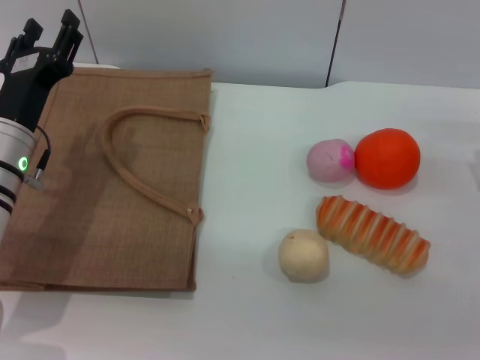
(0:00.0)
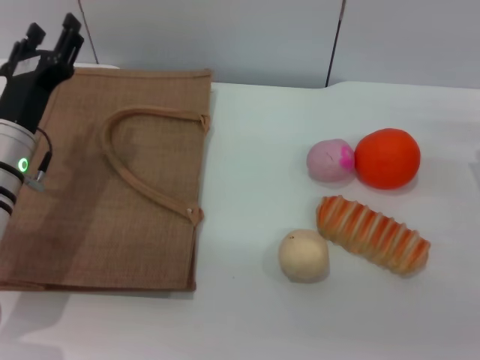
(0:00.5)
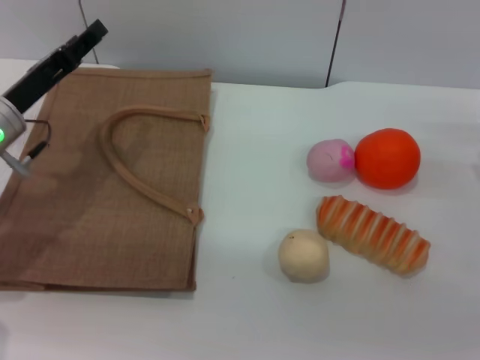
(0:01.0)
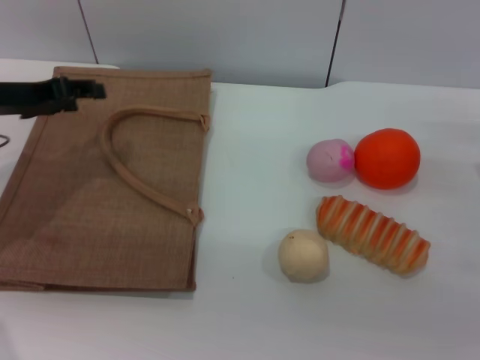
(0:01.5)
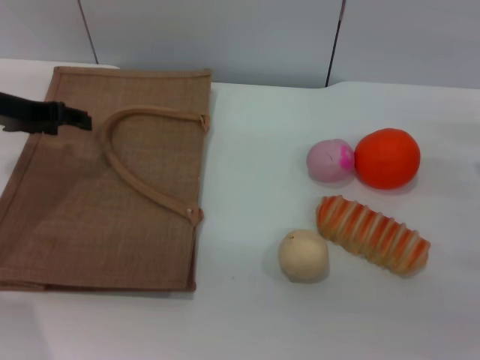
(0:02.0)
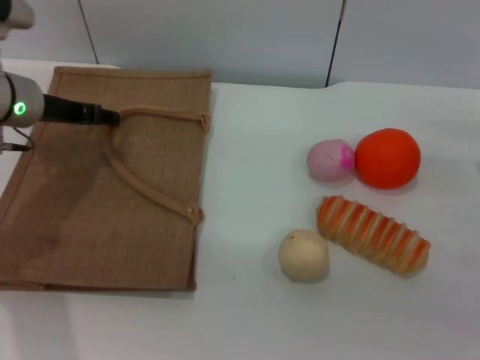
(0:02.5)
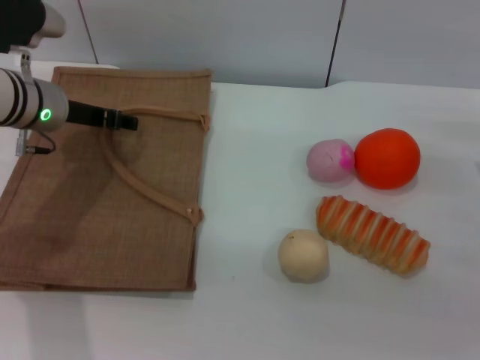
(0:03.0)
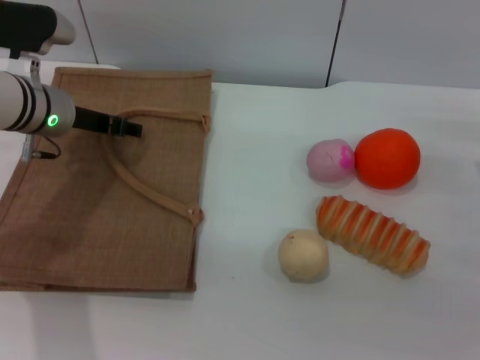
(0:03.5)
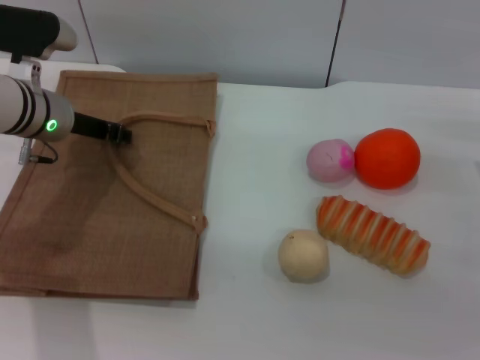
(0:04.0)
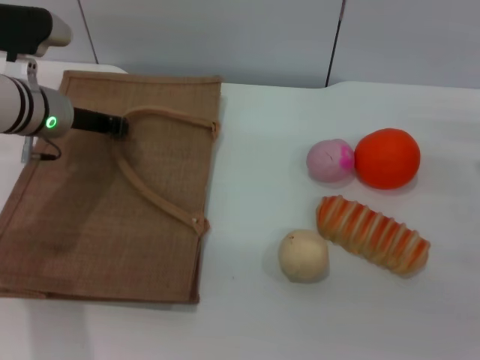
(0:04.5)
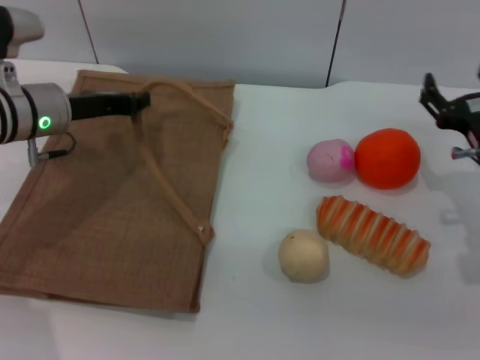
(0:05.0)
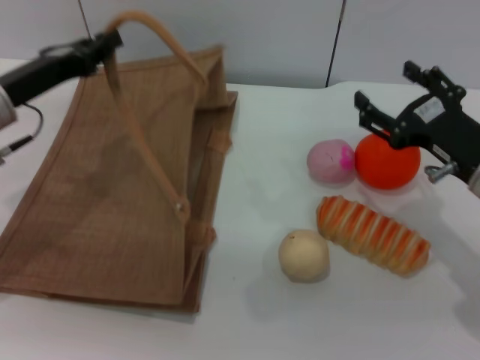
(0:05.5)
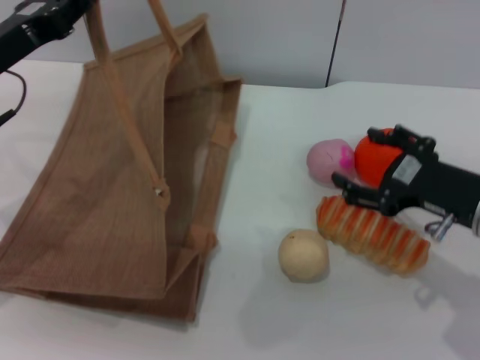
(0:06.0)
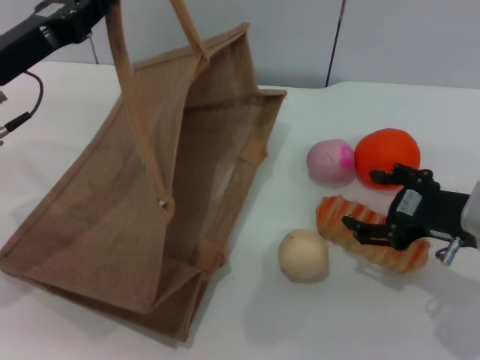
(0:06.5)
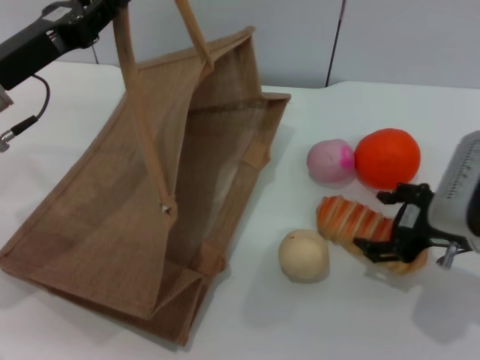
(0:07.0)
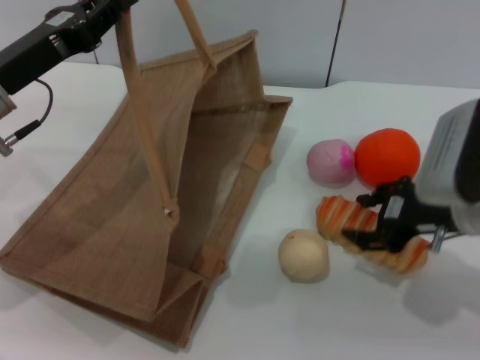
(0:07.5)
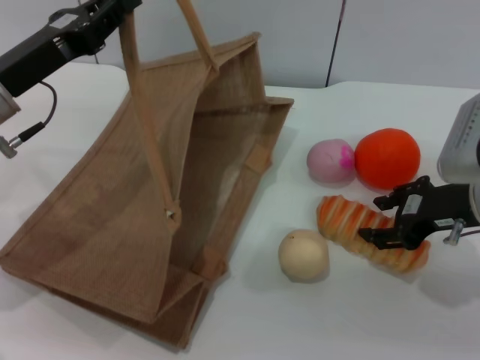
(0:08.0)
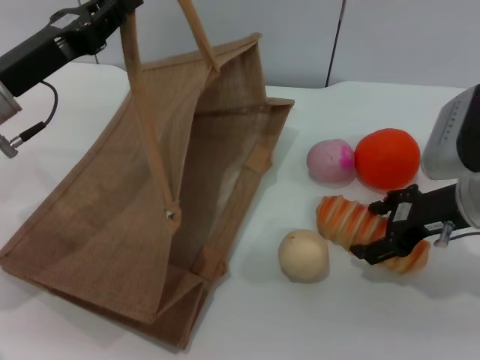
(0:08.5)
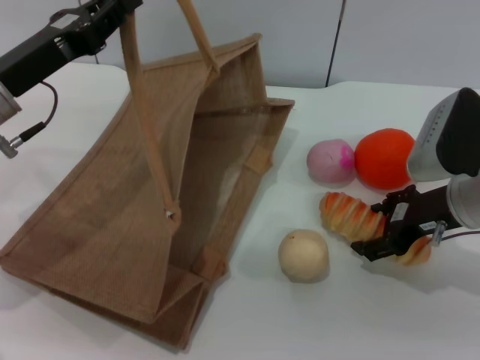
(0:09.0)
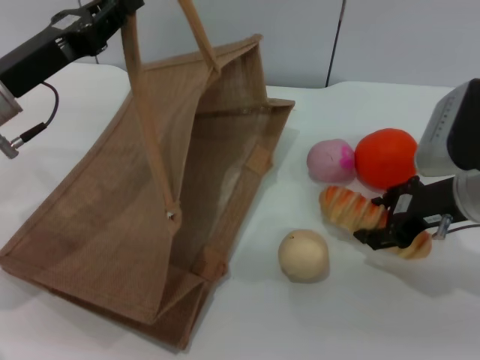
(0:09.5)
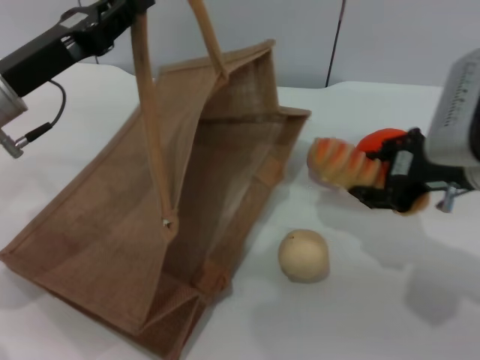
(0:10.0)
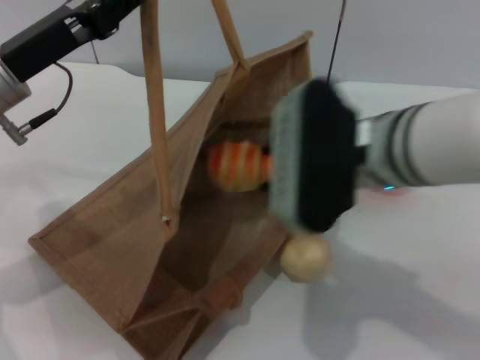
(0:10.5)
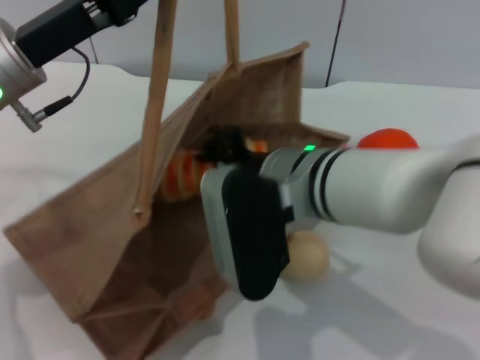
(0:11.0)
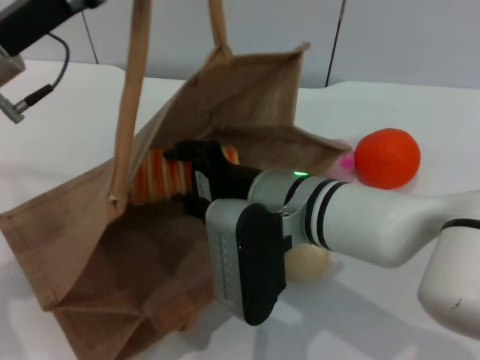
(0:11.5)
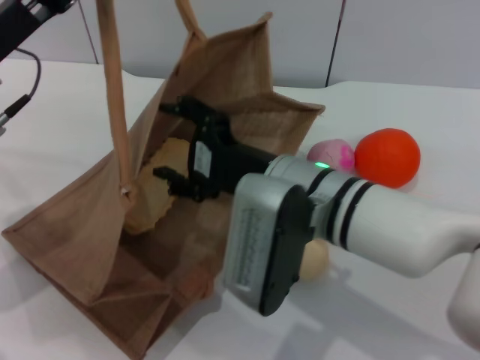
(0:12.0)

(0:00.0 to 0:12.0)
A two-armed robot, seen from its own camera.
Task of the whole recording: pick up the bread and egg yolk pastry from the table and place it in the brown handbag.
Step, 0:00.0 - 0:04.5: Lift the woven bag with the left gripper to open it.
Step, 0:05.0 - 0:09.5: Pick up the bread with the right gripper.
0:00.0 - 0:02.0: The left gripper heads upward, to the left and forward, covering roughly 10 cm.
0:02.0 - 0:04.0: The left gripper moves to the right, approximately 5 cm.
0:04.0 - 0:06.0: The right gripper is displaced to the left by about 5 cm. The left gripper moves backward, some 10 cm, and closes up.
0:06.0 - 0:08.0: The right gripper closes up.
0:08.0 - 0:10.0: The right gripper travels upward by about 5 cm, and opens and closes again.
0:10.0 - 0:12.0: The right gripper goes about 15 cm to the left, and opens.

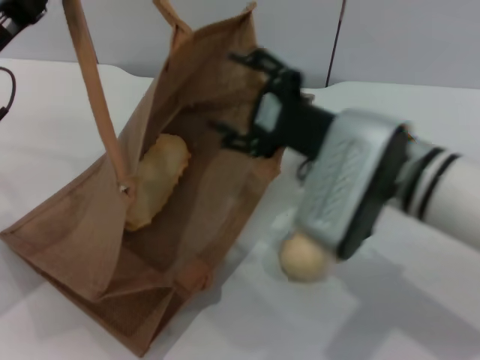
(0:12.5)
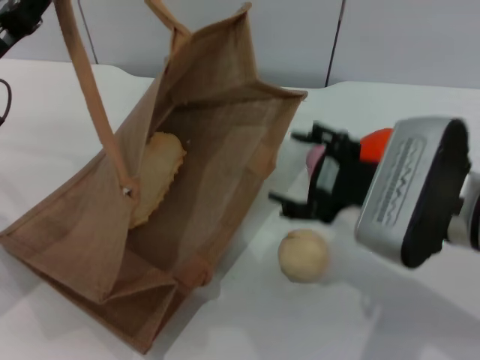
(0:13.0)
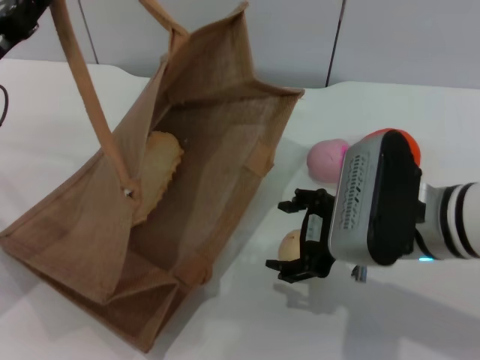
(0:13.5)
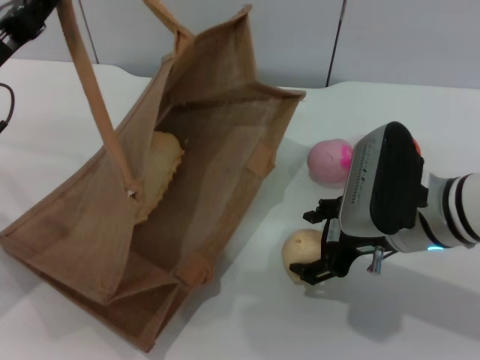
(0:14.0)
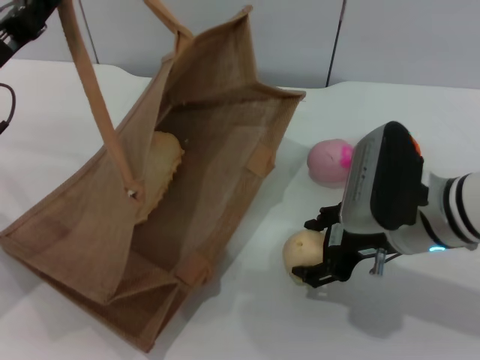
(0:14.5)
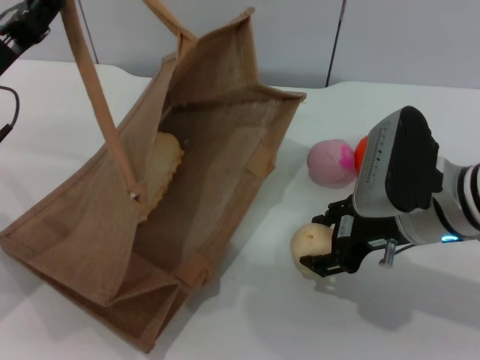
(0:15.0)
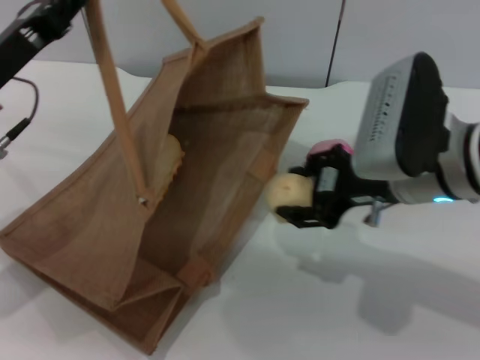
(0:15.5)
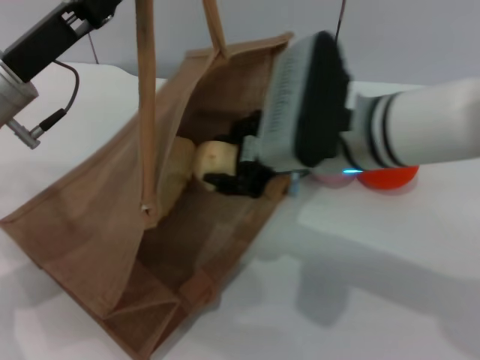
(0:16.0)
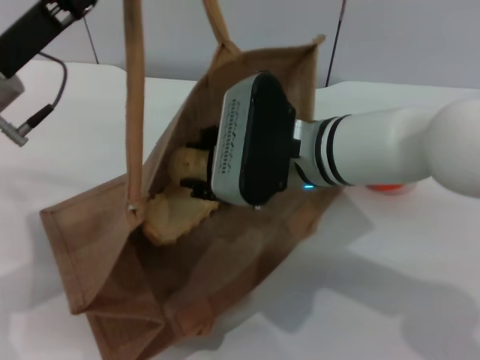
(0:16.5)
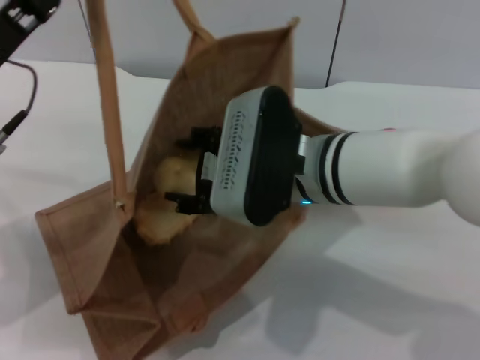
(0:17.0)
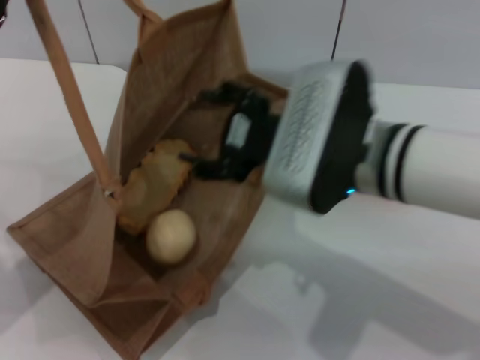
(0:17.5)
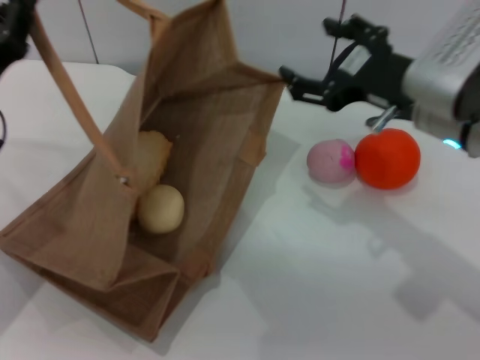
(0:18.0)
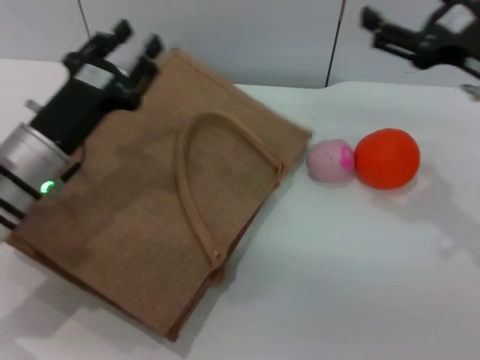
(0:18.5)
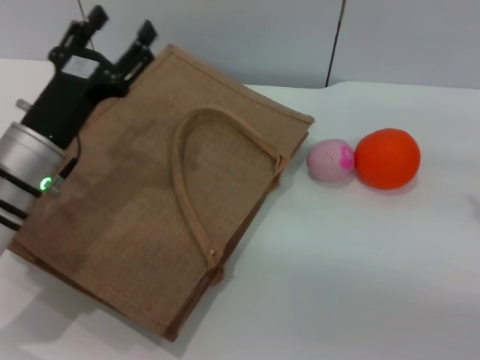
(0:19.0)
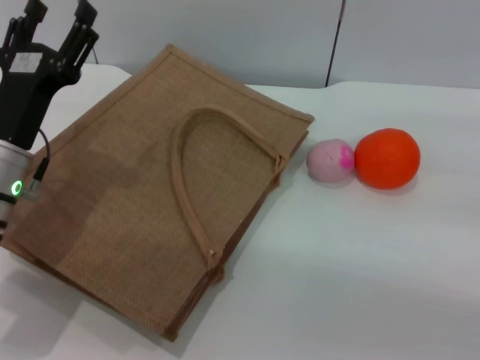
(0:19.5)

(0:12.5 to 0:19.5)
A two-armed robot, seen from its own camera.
Task of the whole recording: pick up the bread and egg yolk pastry from the table and place it in the brown handbag.
Step, 0:13.0 - 0:15.5: Pick up the egg yolk pastry with the right gripper.
Step, 0:16.0 - 0:17.5: Place the egg yolk pastry into the woven bag with the right gripper.
Step, 0:18.0 - 0:19.0: Lower the woven bag with the left gripper to close it.
0:12.5 - 0:14.5: The right gripper changes place by some 5 cm.
0:14.5 - 0:16.0: The left gripper travels to the right by about 5 cm. The right gripper heads to the left and upward, covering roughly 10 cm, and closes.
0:16.0 - 0:17.5: The left gripper ends up approximately 5 cm from where it was. The right gripper opens.
0:17.5 - 0:19.5: The left gripper heads downward and to the right, covering approximately 10 cm, and opens. The right gripper goes approximately 25 cm to the right.

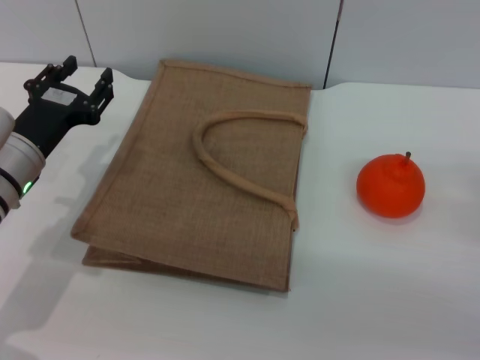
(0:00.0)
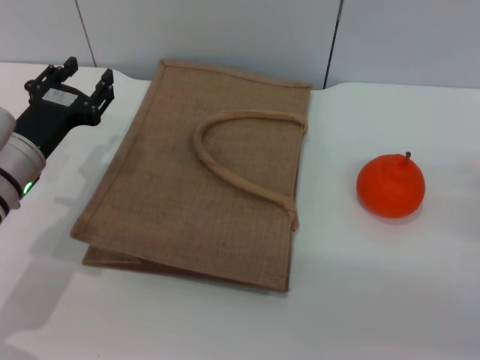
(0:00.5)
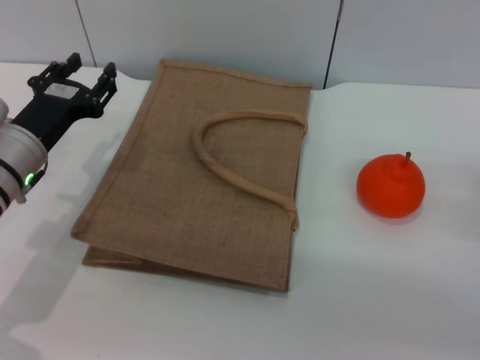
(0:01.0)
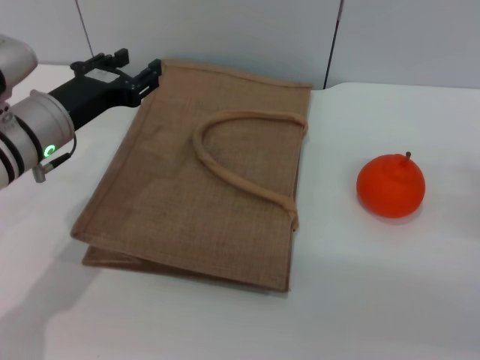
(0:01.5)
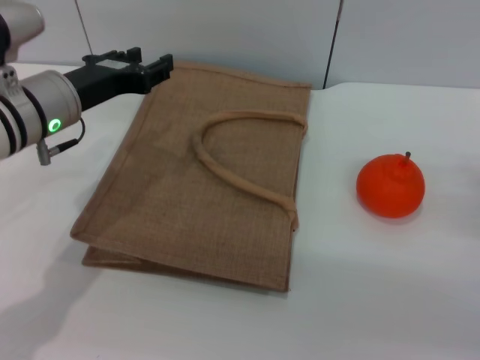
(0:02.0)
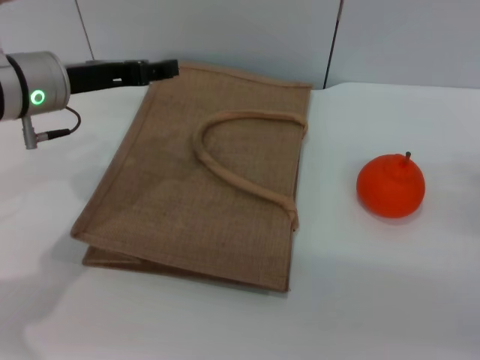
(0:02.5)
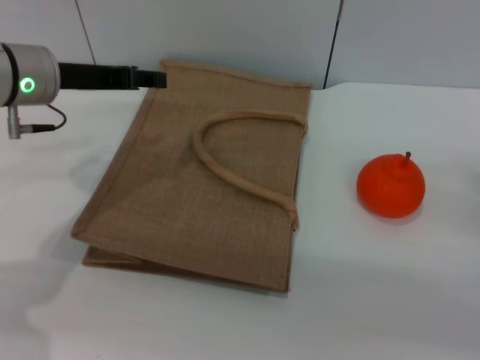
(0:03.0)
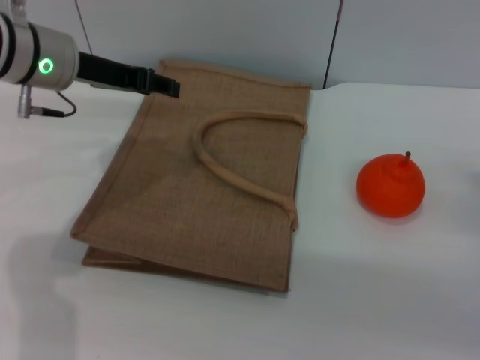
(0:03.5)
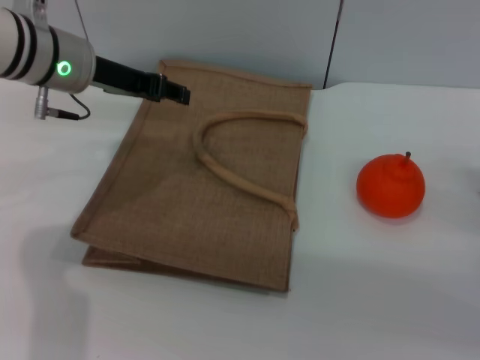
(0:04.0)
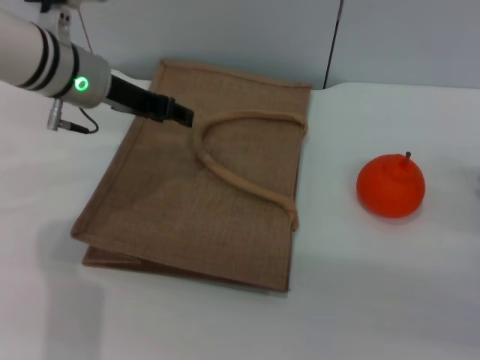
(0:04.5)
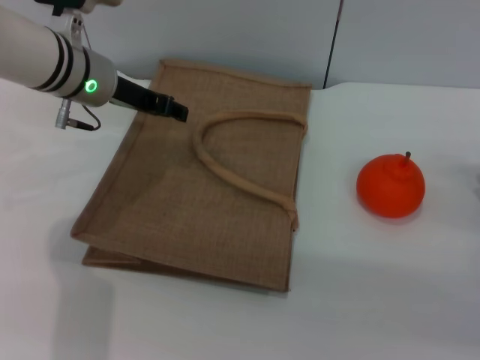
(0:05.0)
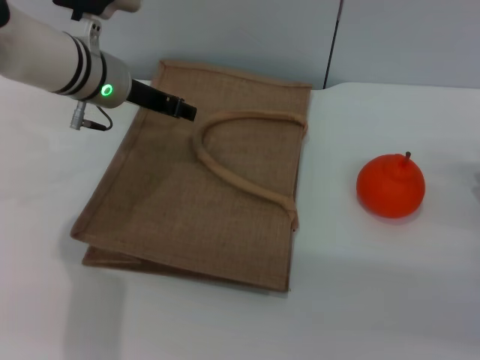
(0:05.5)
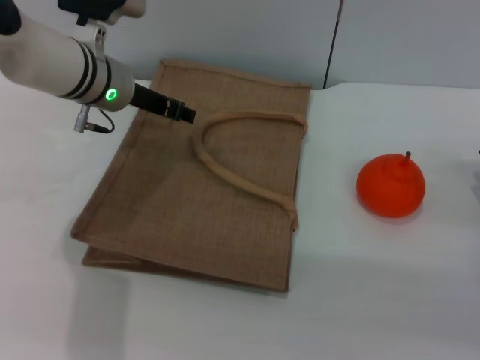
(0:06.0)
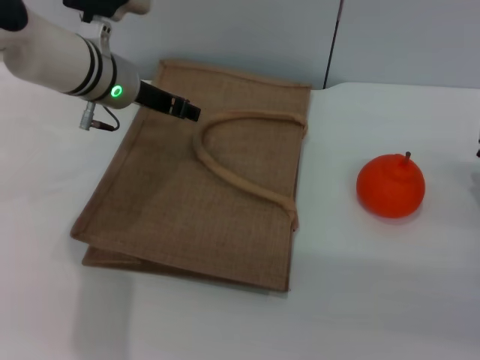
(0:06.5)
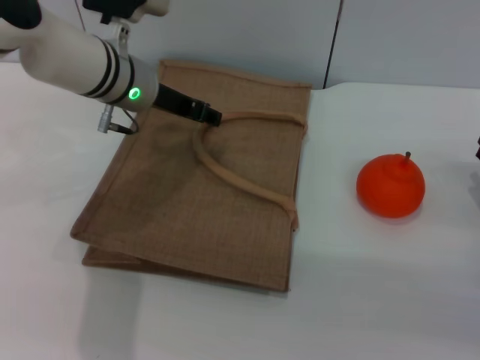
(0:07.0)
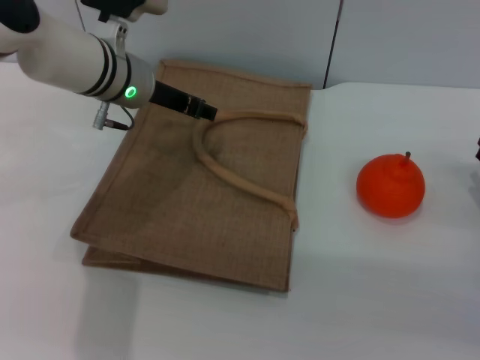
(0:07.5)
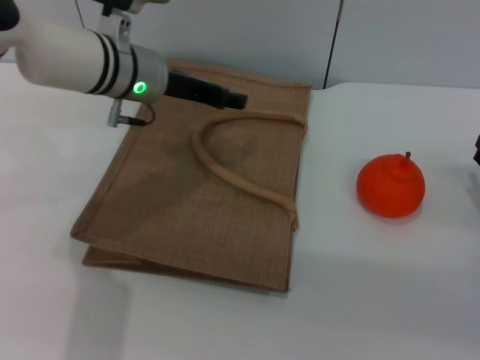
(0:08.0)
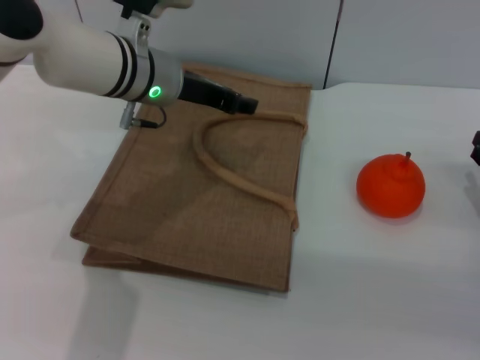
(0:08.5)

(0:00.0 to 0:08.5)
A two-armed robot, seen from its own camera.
Task of the whole recording: pick up the orange from the table and place it in the brown handbag.
0:00.0 - 0:02.0: The left gripper heads upward, covering some 5 cm.
0:02.0 - 0:04.0: The left gripper is displaced forward by approximately 5 cm.
0:04.0 - 0:06.5: The left gripper ends up about 5 cm from where it was.
0:06.5 - 0:08.5: There are only small adjustments of the grippers.
